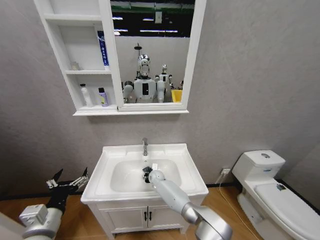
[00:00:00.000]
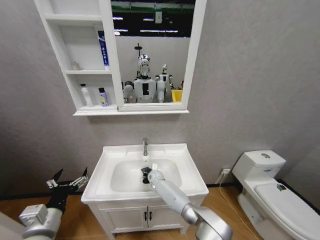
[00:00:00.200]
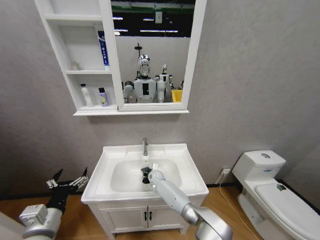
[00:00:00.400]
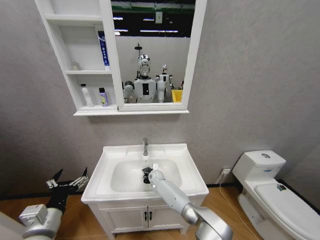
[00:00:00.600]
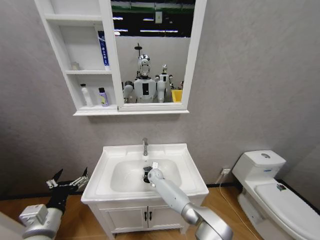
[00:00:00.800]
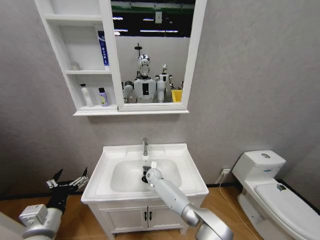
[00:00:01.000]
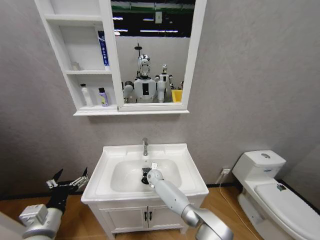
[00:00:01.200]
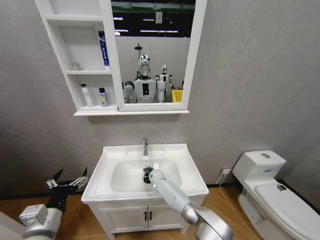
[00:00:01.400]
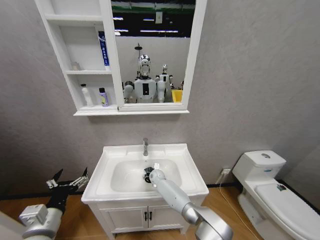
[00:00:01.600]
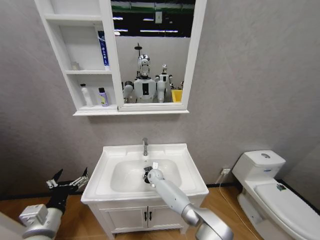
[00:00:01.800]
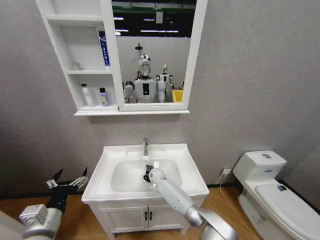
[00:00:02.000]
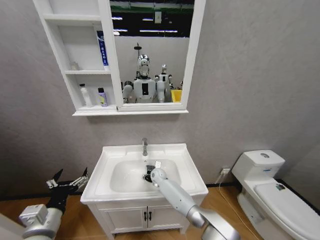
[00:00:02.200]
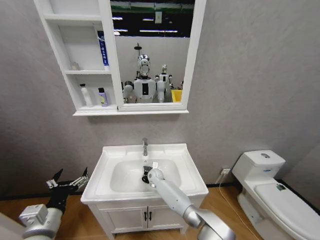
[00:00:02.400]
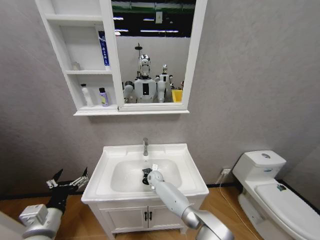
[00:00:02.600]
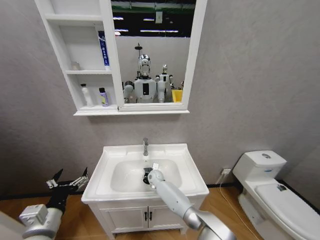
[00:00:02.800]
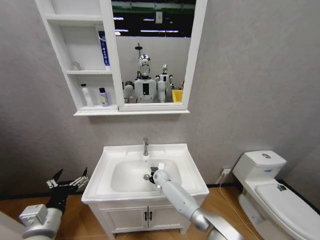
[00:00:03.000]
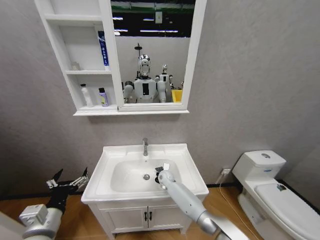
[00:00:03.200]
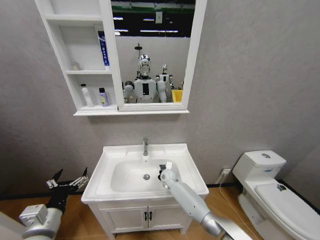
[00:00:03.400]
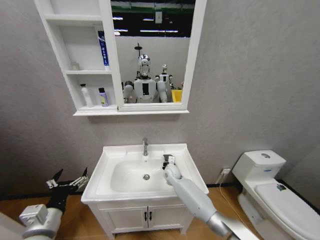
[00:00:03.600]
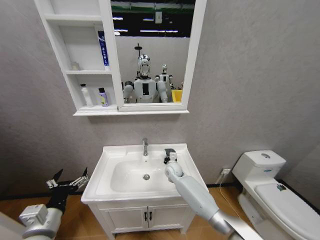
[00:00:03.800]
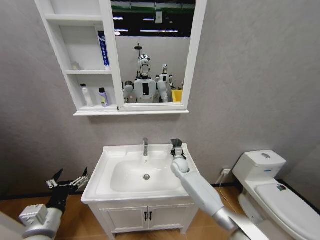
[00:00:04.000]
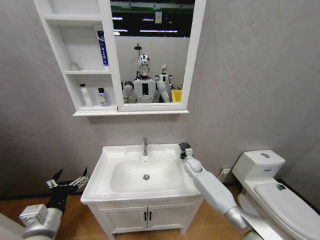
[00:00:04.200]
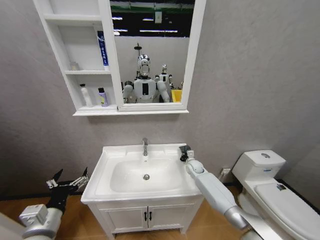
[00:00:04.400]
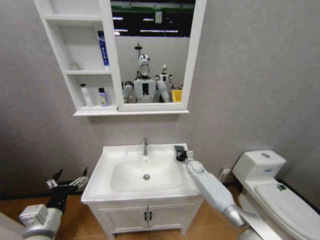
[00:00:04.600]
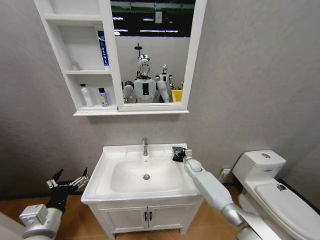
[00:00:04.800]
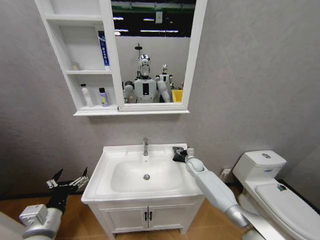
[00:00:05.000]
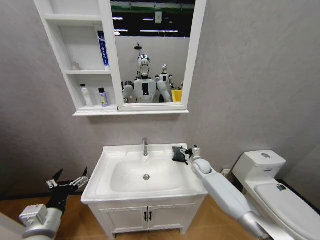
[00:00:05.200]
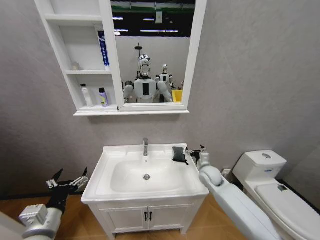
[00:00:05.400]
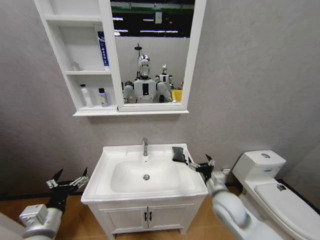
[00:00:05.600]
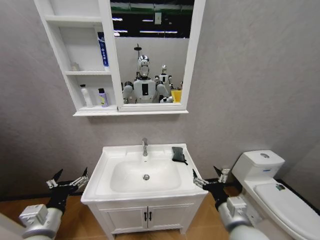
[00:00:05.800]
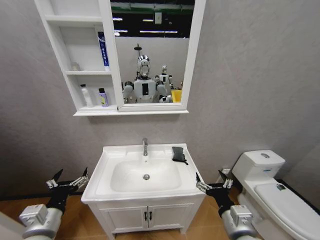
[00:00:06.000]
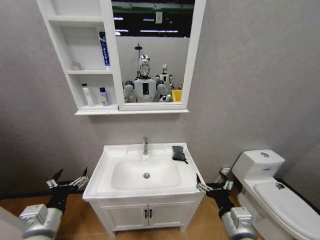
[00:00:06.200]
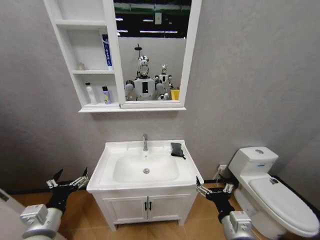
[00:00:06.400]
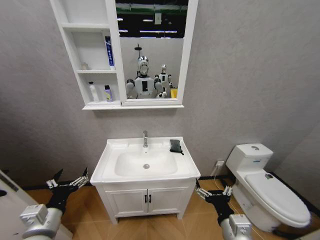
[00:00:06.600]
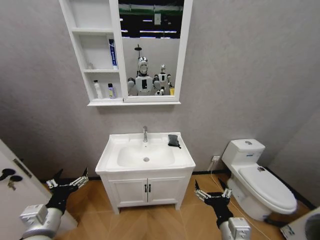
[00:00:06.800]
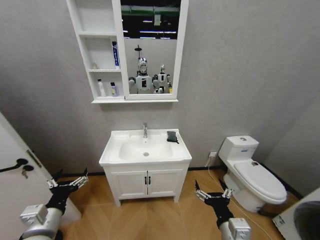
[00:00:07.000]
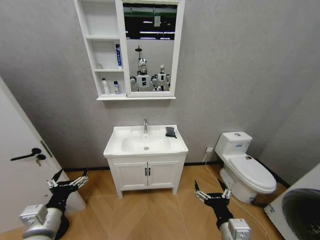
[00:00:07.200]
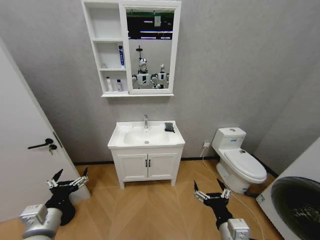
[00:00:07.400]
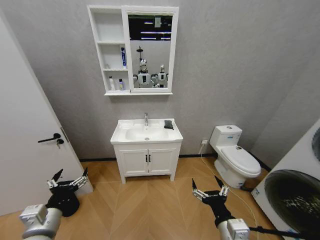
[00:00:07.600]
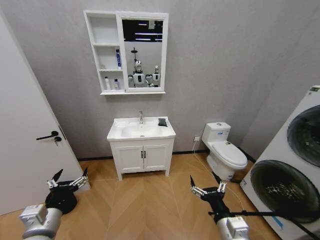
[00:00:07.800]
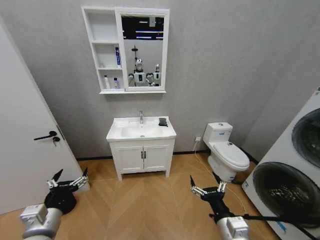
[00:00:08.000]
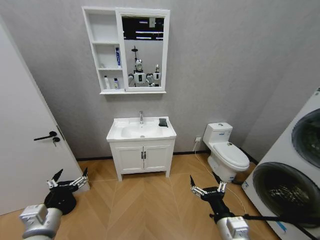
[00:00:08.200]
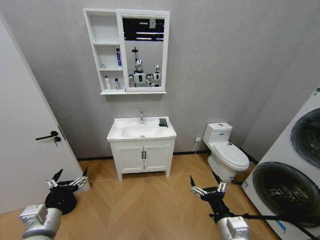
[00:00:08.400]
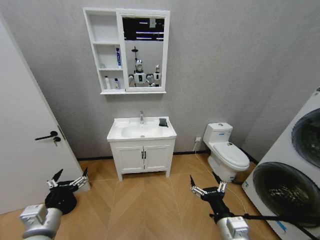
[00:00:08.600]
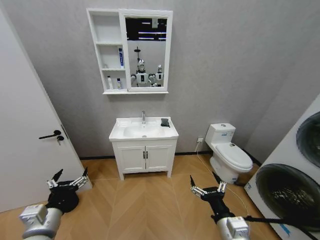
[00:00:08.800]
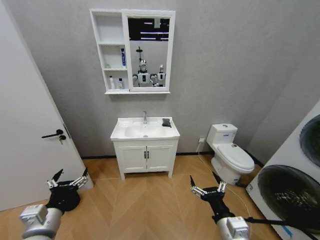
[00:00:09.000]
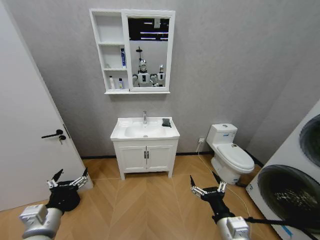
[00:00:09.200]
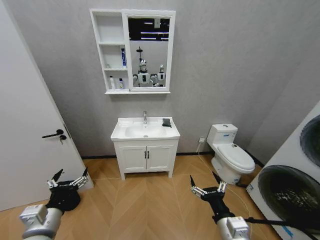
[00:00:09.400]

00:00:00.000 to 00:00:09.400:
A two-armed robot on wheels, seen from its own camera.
Task of the whole recording: Move facial cleanser and shampoo from washbasin to cabinet, then wipe washbasin with towel.
00:00:00.000 to 00:00:01.600: The grippers make only small movements.
00:00:01.600 to 00:00:03.200: The right gripper is displaced to the right by approximately 5 cm.
00:00:03.200 to 00:00:04.800: The right gripper travels to the right by about 15 cm, and opens its fingers.
00:00:04.800 to 00:00:06.200: The right gripper goes roughly 40 cm backward, and opens up.
00:00:07.800 to 00:00:09.400: Both grippers stay about where they are.
